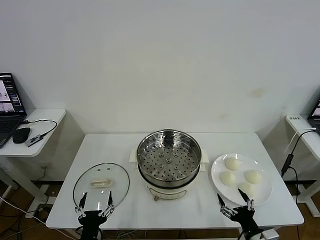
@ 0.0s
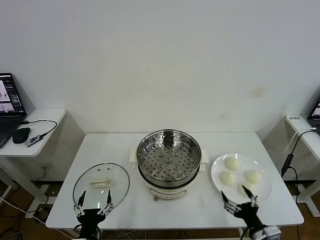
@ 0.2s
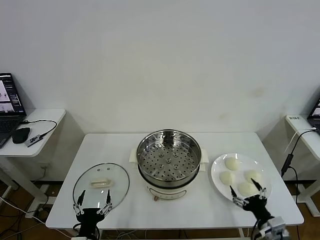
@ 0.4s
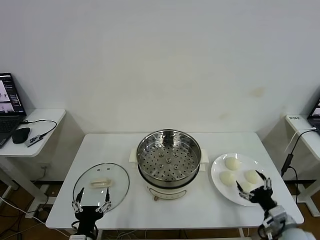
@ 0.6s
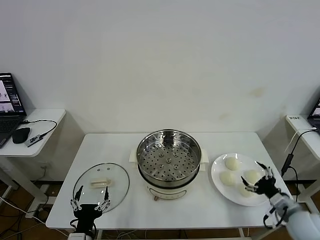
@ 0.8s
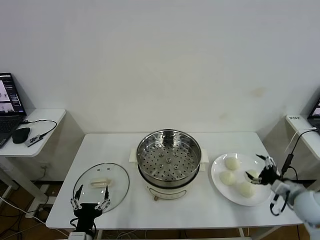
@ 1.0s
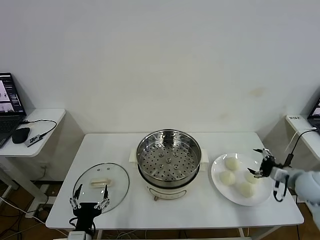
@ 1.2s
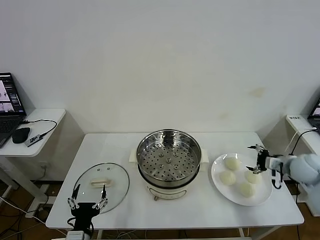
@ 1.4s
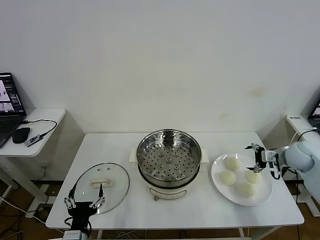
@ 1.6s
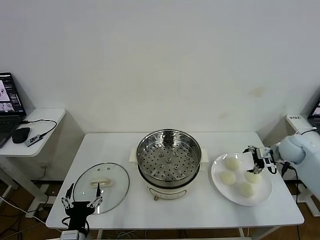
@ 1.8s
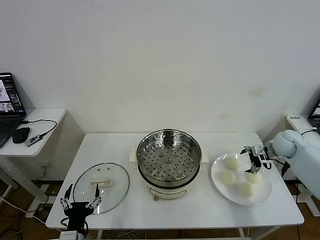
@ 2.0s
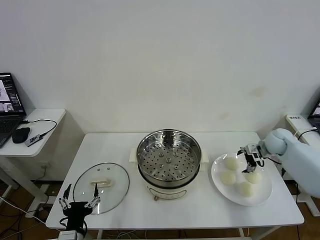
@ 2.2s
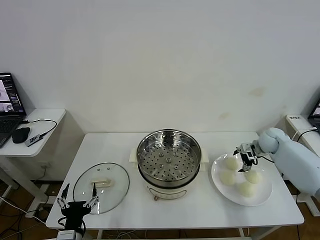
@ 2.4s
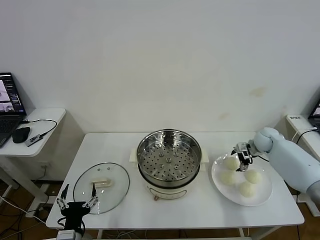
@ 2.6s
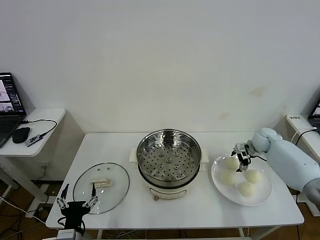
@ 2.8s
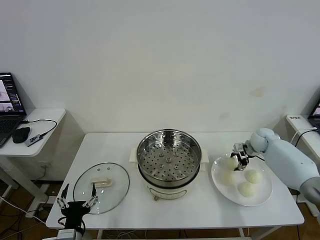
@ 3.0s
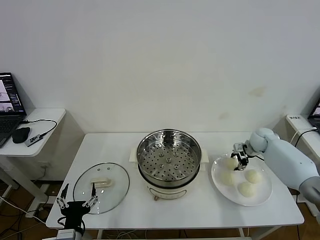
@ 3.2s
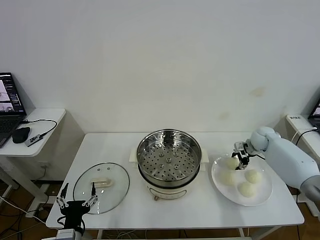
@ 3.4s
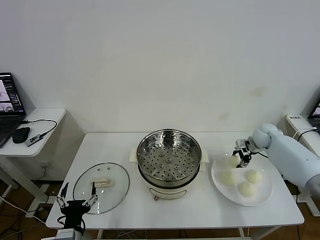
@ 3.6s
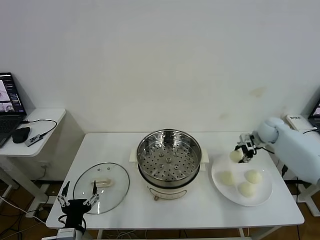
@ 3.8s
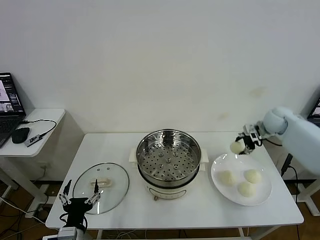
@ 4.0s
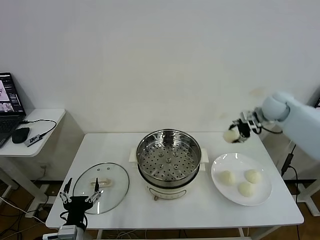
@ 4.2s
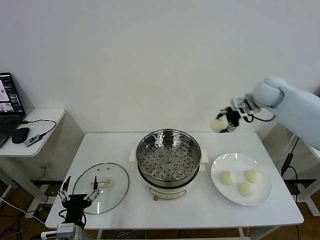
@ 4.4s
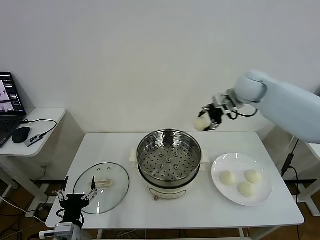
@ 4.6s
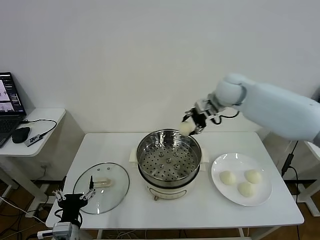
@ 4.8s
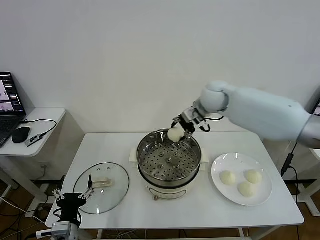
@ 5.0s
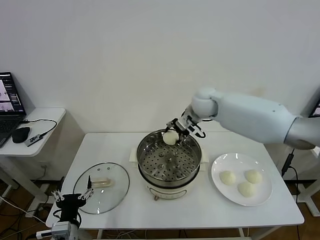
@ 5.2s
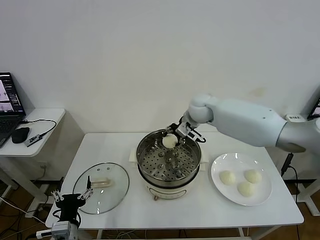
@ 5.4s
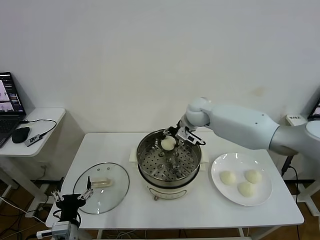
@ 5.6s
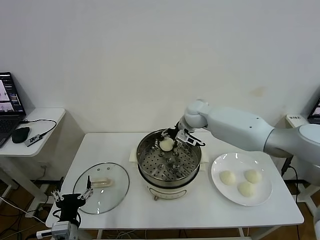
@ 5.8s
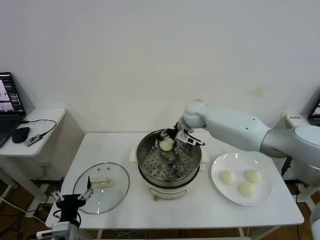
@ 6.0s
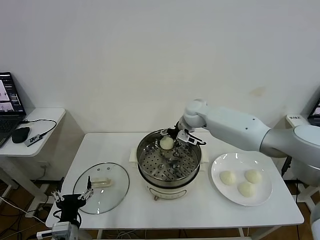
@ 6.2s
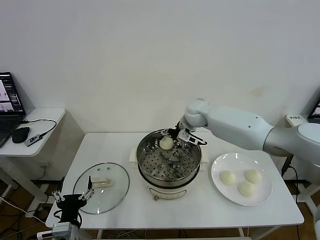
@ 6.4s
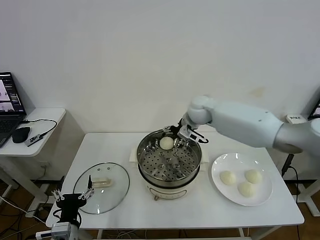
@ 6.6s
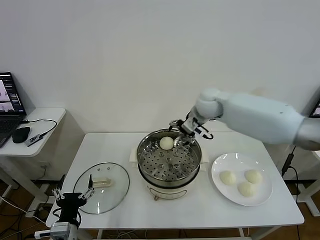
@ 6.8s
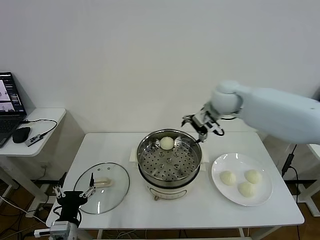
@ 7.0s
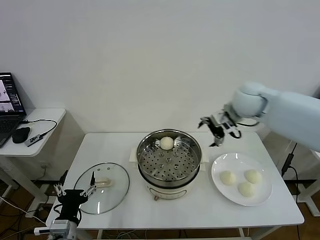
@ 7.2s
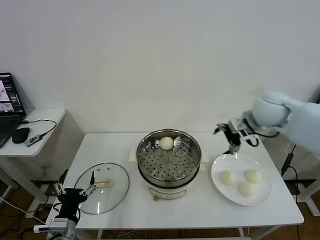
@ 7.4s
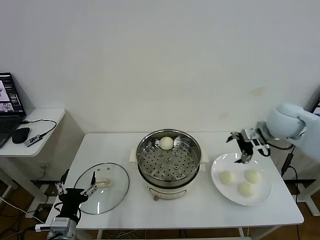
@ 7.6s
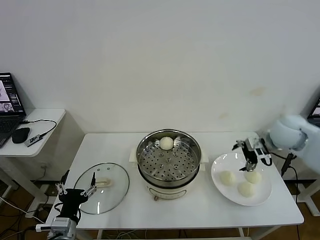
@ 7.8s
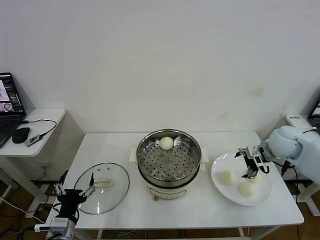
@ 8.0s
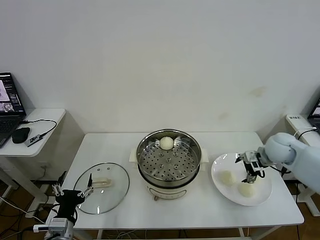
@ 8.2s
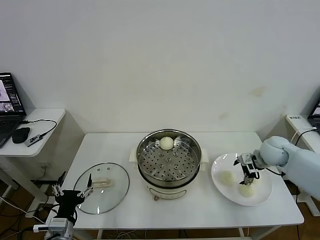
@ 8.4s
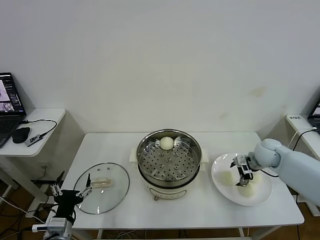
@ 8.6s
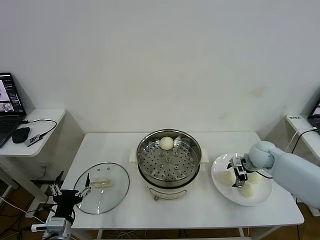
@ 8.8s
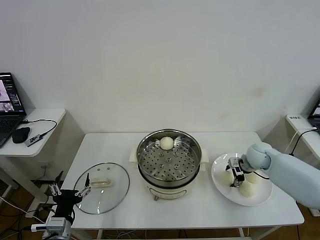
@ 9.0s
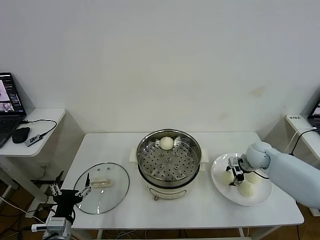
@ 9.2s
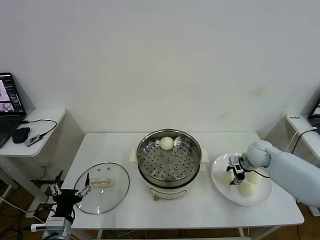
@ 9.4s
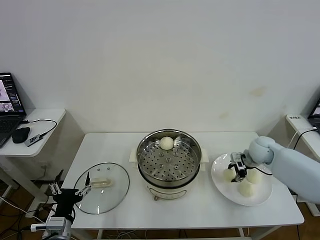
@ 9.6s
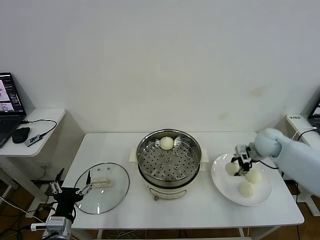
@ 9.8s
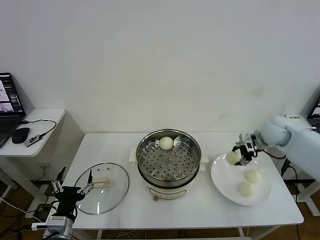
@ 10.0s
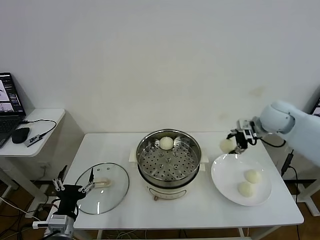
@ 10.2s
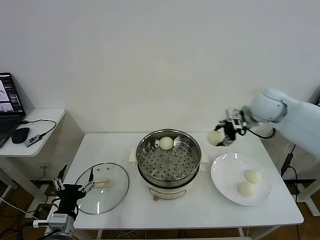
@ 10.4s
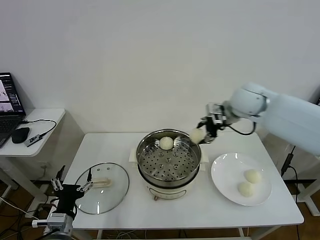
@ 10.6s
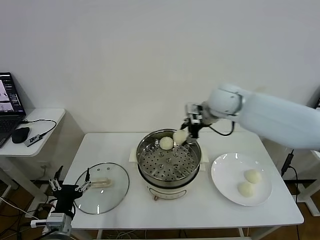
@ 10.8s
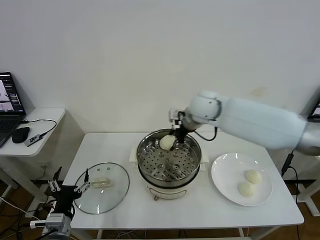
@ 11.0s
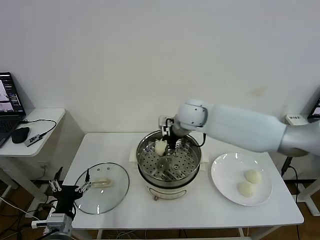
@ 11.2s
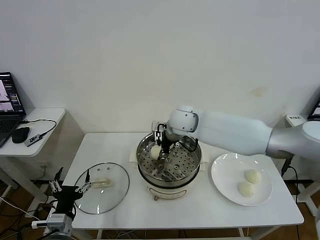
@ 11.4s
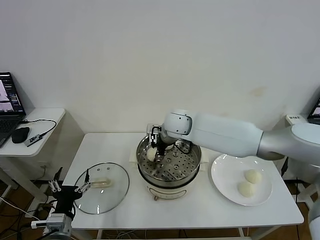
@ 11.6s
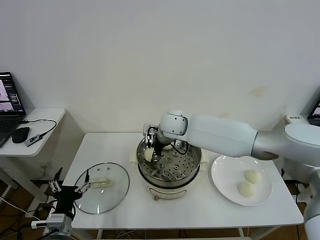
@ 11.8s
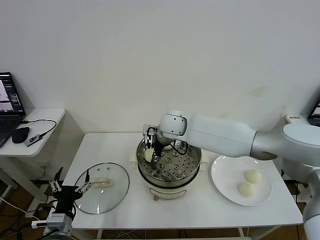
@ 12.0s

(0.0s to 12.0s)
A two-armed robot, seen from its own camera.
Task of the whole recording: take steamed baozi put them in steamer then cover it.
Step, 0.0s - 3.2s: Grasp the baozi in the plate with right gripper.
Step, 3.4s - 6.2s: Place the baozi on the steamer with right gripper.
Step, 6.4s - 9.4s: Grasp the baozi in the plate with right gripper.
1.6s - 3.0s: The right gripper travels forward, downward and to the left by roughly 15 cm, and closes.
3.0s - 4.4s: The right gripper is displaced upward and to the left by approximately 25 cm.
4.4s - 6.0s: The right gripper goes about 20 cm to the left and downward, and opens.
6.0s - 7.6s: The right gripper travels to the right and backward by roughly 30 cm, and opens its fingers.
7.6s - 9.0s: The right gripper is displaced downward by about 20 cm, and closes its fingers.
9.0s - 10.4s: The right gripper travels upward by about 25 cm, and closes up.
10.4s - 12.0s: The right gripper shifts approximately 25 cm to the left and downward.

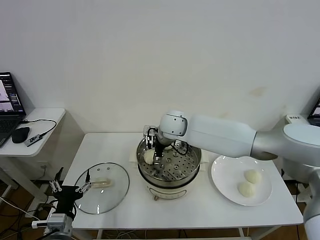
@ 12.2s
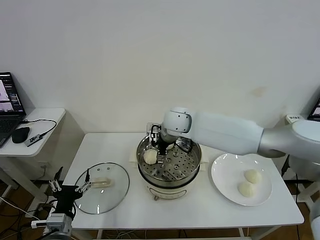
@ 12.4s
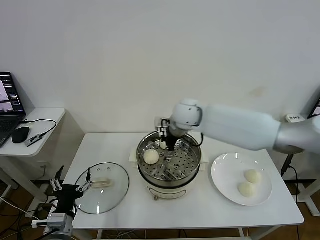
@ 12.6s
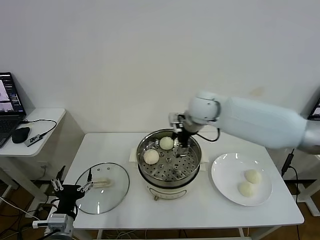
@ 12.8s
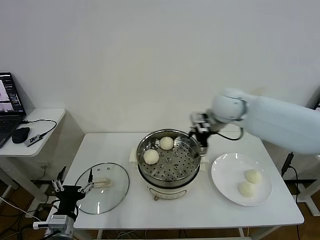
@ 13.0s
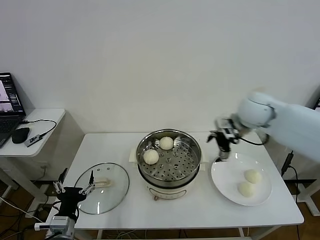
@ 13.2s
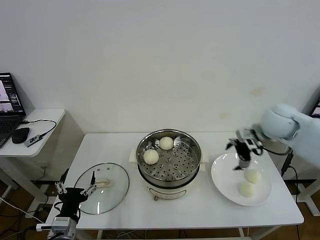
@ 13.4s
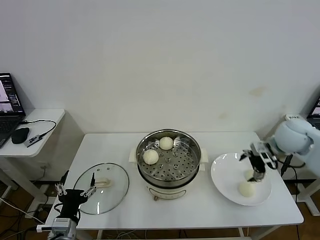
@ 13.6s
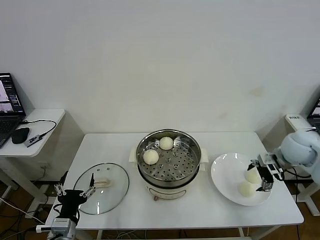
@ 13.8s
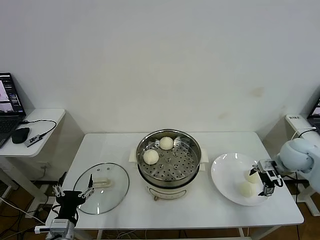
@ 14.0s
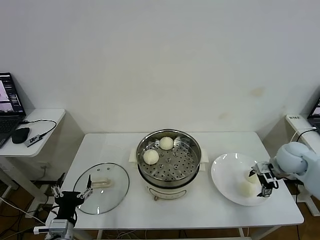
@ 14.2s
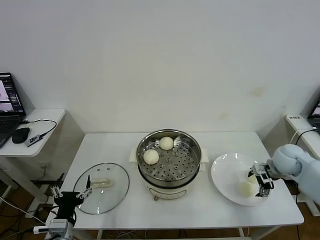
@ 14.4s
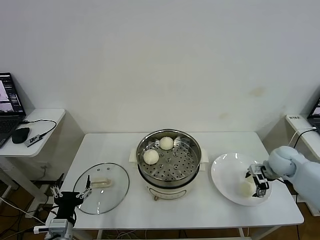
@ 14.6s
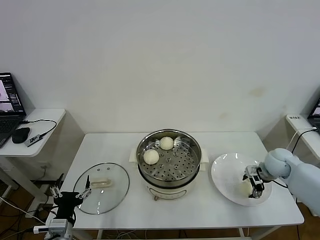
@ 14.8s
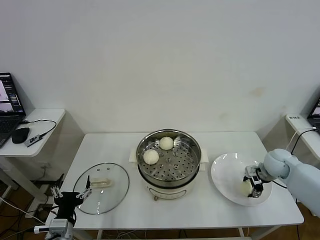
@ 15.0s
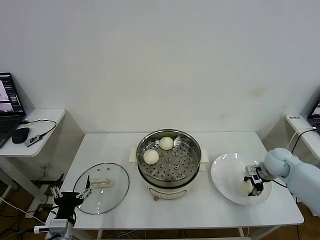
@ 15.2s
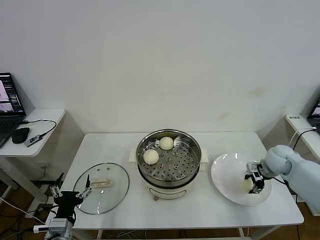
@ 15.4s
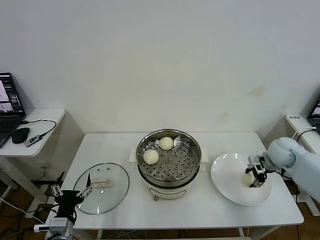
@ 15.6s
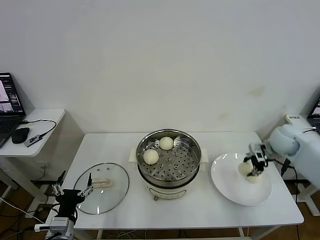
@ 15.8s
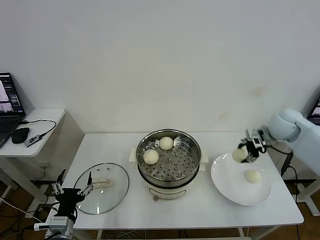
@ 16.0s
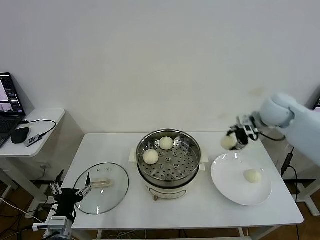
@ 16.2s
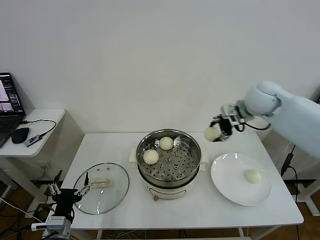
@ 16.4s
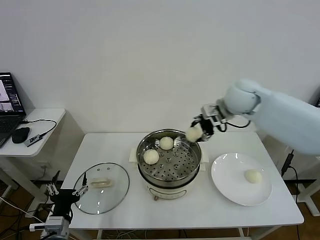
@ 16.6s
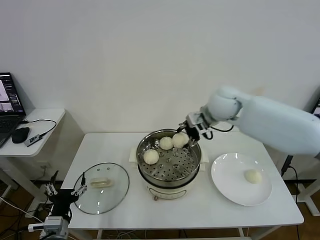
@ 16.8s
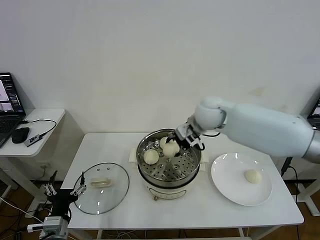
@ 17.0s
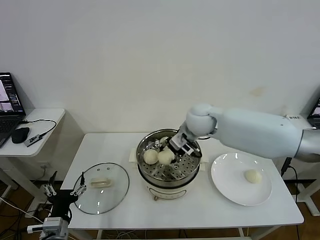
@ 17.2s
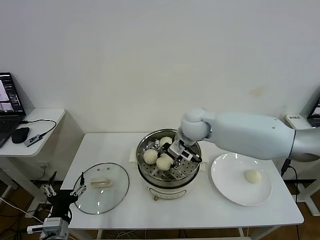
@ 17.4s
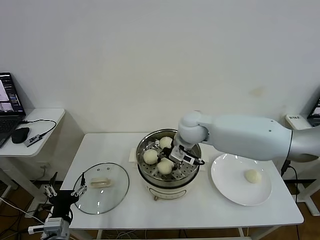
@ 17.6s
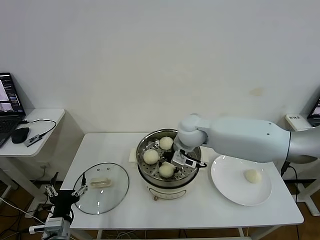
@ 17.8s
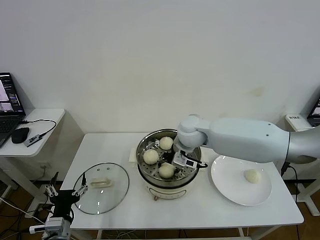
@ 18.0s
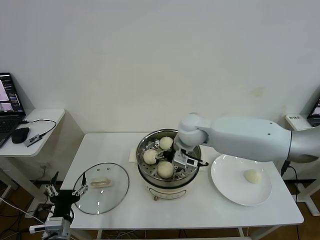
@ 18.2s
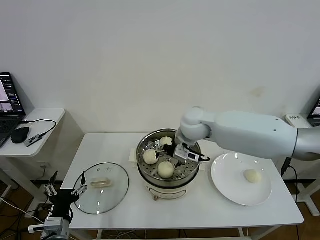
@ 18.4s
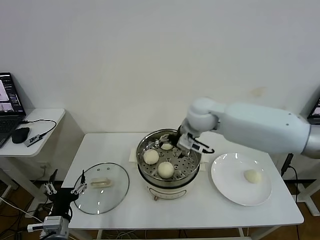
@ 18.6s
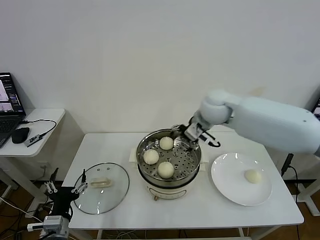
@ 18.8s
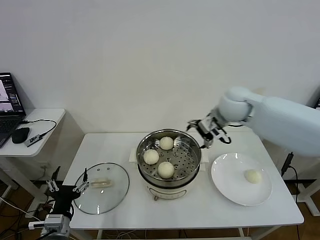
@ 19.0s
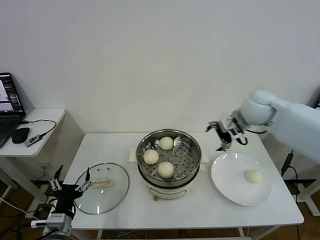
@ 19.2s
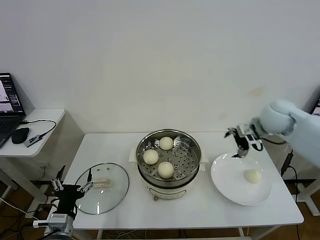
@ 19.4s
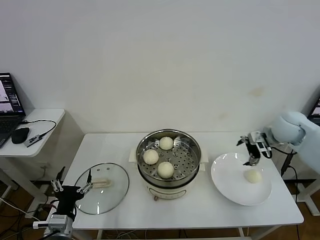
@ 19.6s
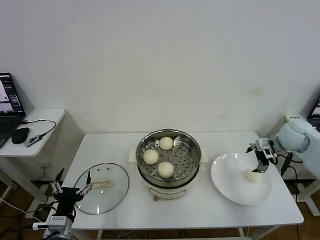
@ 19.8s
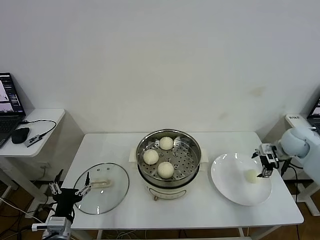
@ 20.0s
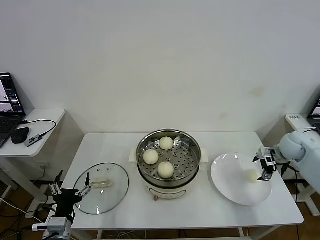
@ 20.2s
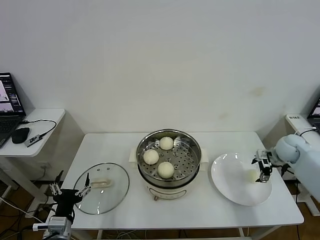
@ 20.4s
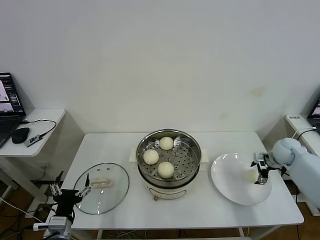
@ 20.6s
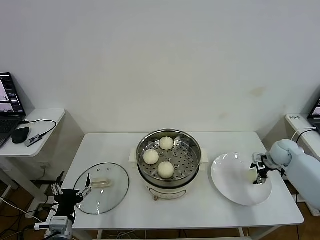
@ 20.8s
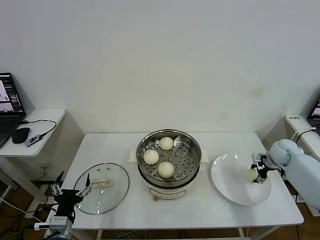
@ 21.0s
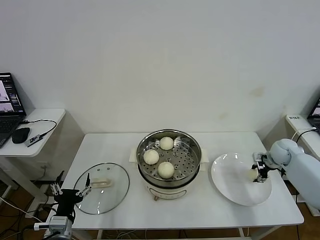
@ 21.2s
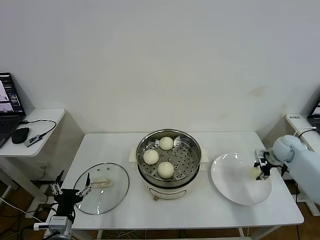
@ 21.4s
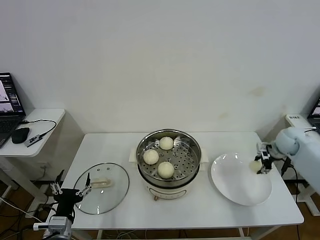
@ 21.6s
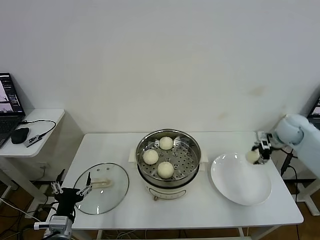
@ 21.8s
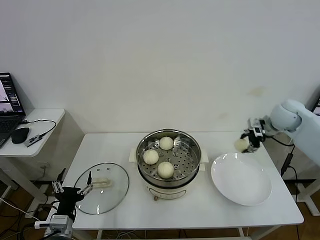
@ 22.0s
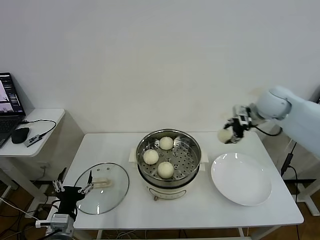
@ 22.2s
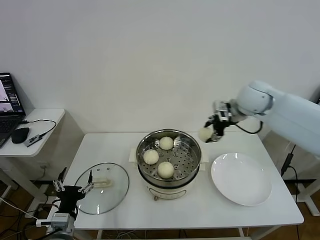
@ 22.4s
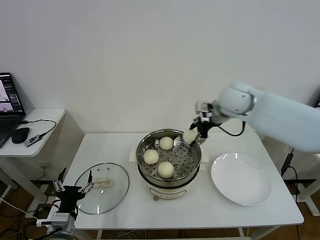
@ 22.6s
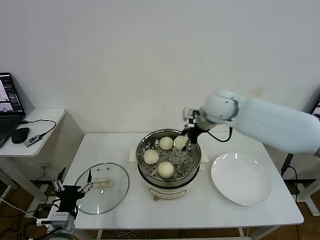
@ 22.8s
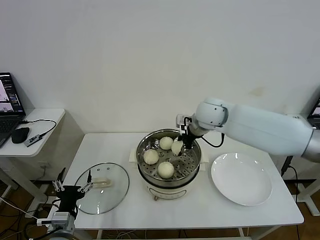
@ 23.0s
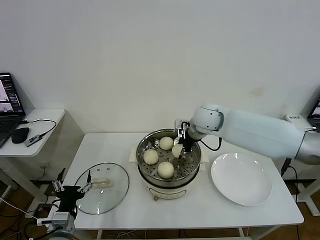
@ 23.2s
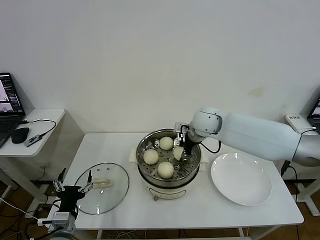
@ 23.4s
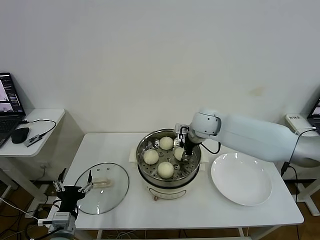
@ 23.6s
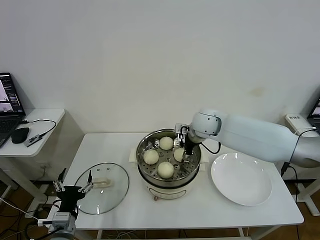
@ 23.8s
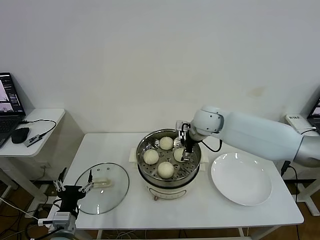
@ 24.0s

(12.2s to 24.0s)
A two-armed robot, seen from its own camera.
Task of the whole recording: take steamed baozi put them in steamer then cover it.
Step, 12.4s - 15.2s: Grasp the baozi in the plate with right gripper.
Step, 15.6s - 18.2s: Place the baozi on the steamer with right gripper.
Step, 18.4s - 21.2s: Grasp the baozi in the plate with right gripper.
Step, 21.4s - 23.8s: Place the baozi on the steamer with right gripper.
12.2s - 13.6s: The right gripper shifts some 35 cm to the right.
13.6s - 15.2s: The right gripper travels downward by about 15 cm, and closes its fingers.
15.2s - 16.6s: The right gripper moves upward and to the left, approximately 30 cm.
16.6s - 18.2s: The right gripper is displaced to the left and downward by roughly 15 cm, and opens.
18.2s - 19.6s: The right gripper goes some 30 cm to the right.
19.6s - 21.0s: The right gripper goes roughly 15 cm downward and to the right, and closes its fingers.
21.0s - 22.6s: The right gripper goes some 35 cm to the left and upward.
22.6s - 24.0s: The right gripper travels downward and to the left by some 10 cm, and opens its fingers.
